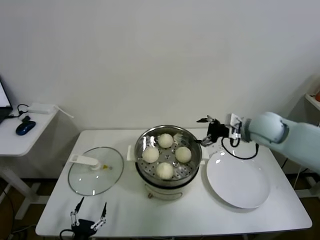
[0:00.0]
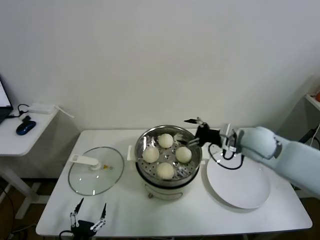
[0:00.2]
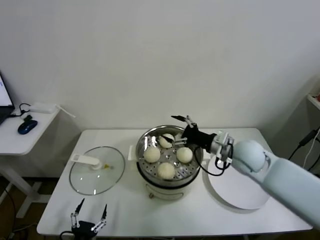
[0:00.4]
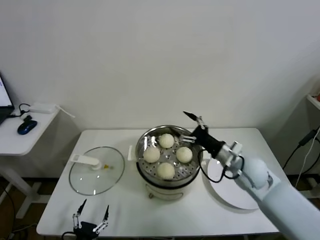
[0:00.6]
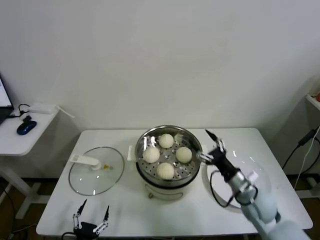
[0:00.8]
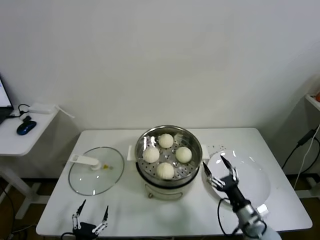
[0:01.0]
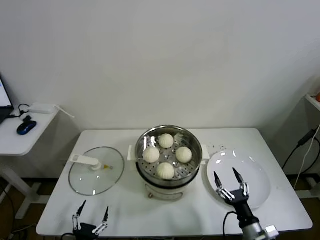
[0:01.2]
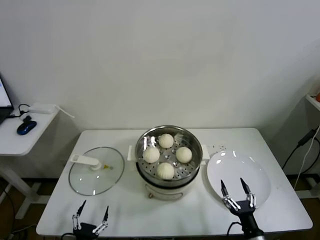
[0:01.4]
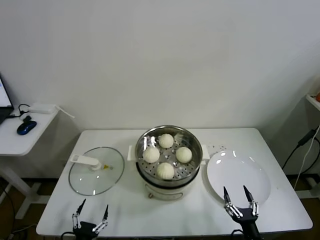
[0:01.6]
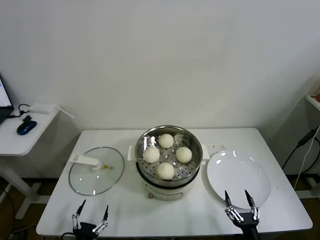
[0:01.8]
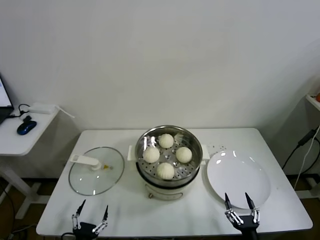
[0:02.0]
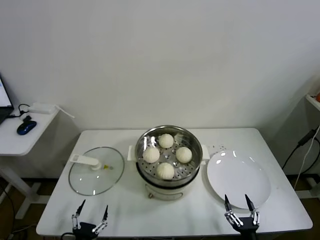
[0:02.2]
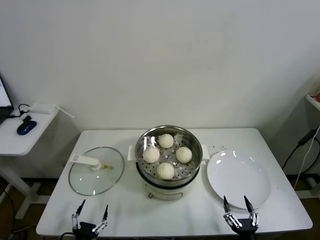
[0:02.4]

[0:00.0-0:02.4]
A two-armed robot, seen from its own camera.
Task of the whole recording: take steamed baozi put them in steamer.
0:00.0 to 0:01.2: The right gripper is displaced downward and backward by roughly 40 cm.
0:01.2 to 0:02.4: The right gripper shifts roughly 10 cm backward.

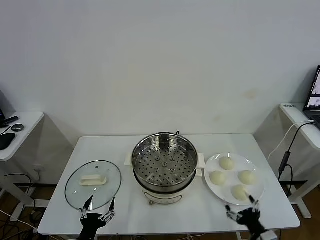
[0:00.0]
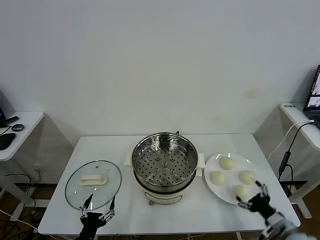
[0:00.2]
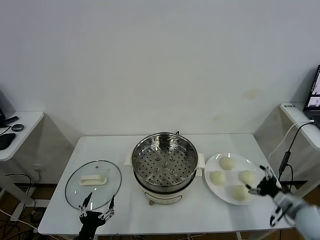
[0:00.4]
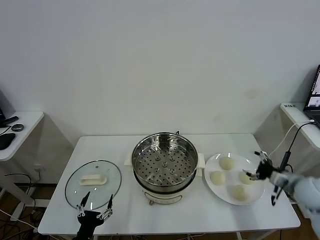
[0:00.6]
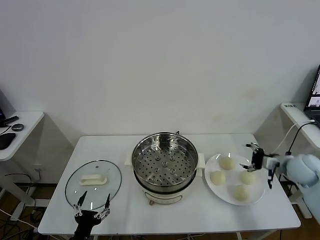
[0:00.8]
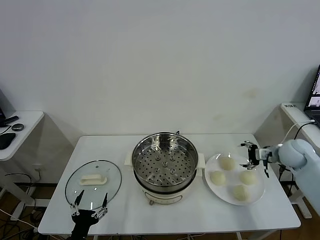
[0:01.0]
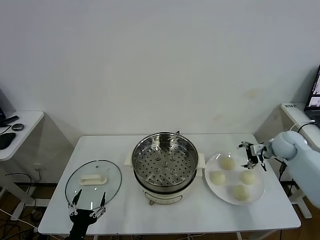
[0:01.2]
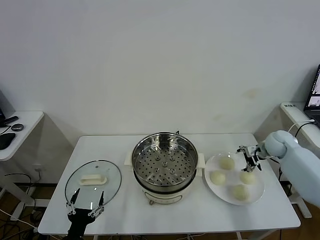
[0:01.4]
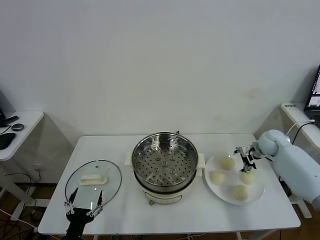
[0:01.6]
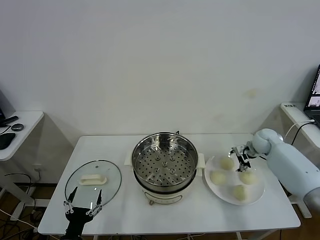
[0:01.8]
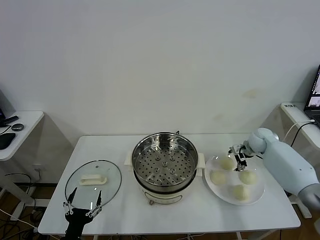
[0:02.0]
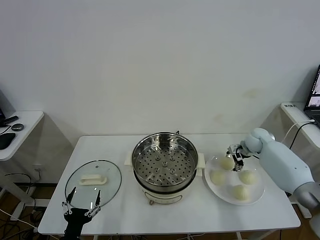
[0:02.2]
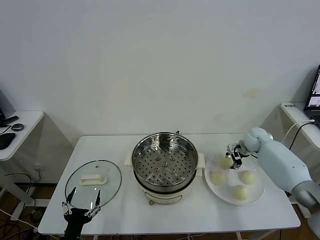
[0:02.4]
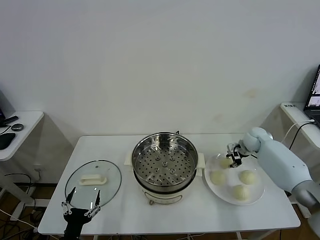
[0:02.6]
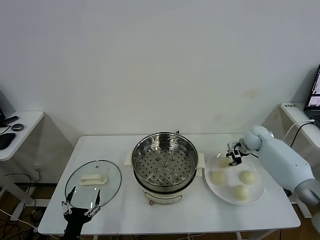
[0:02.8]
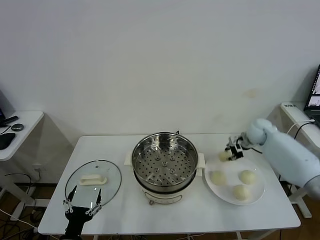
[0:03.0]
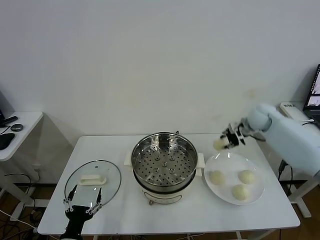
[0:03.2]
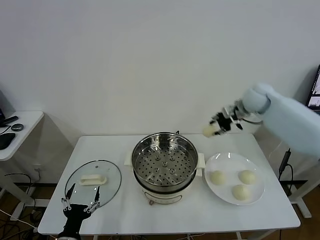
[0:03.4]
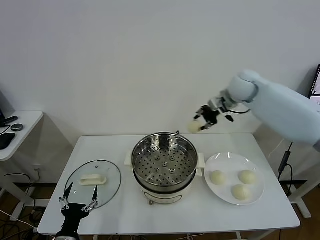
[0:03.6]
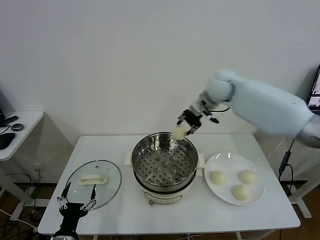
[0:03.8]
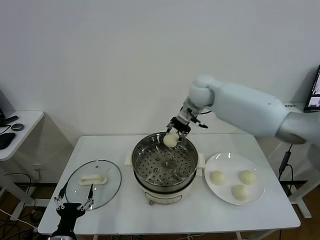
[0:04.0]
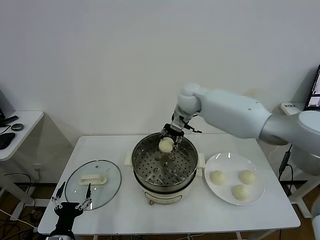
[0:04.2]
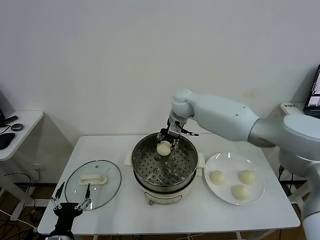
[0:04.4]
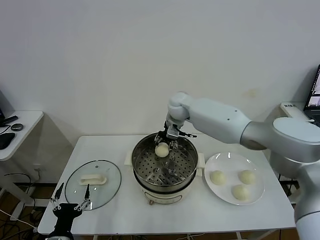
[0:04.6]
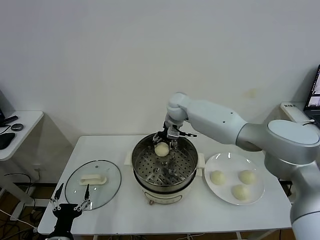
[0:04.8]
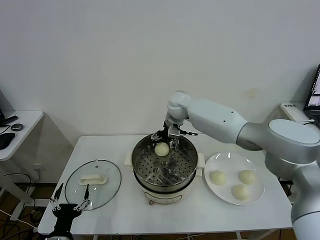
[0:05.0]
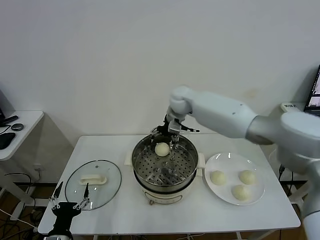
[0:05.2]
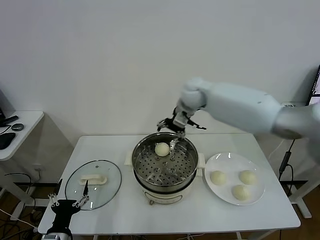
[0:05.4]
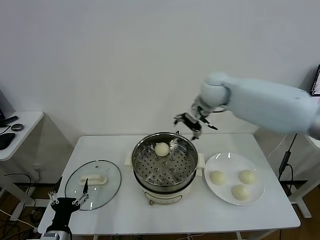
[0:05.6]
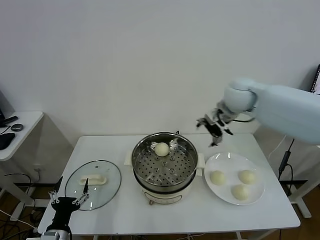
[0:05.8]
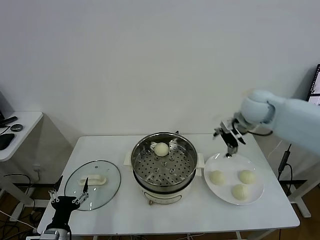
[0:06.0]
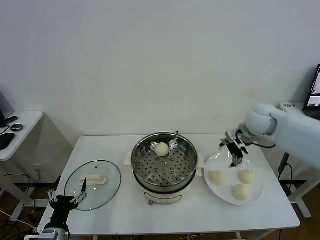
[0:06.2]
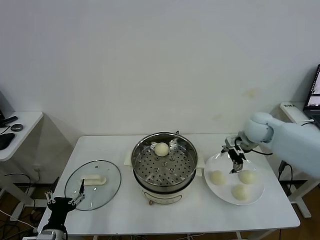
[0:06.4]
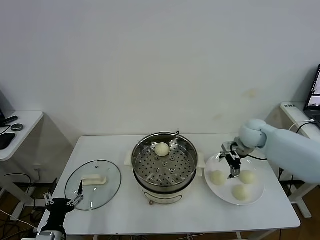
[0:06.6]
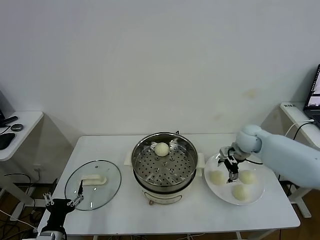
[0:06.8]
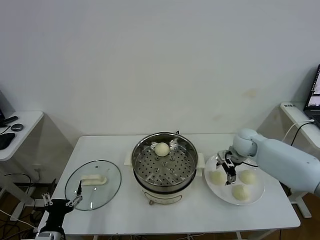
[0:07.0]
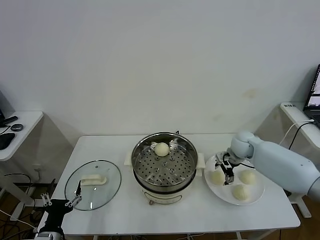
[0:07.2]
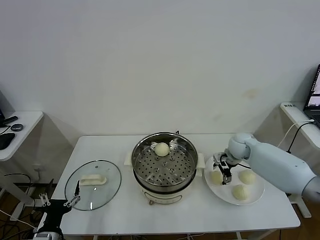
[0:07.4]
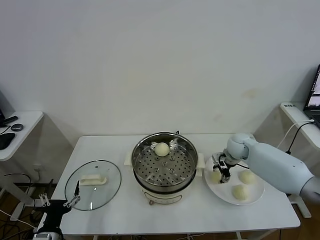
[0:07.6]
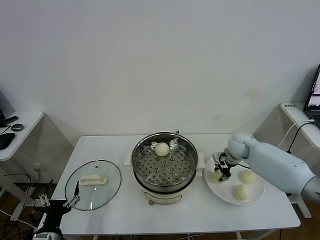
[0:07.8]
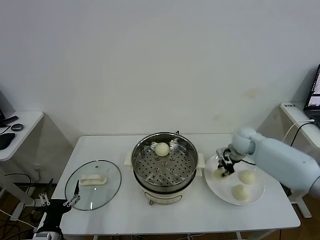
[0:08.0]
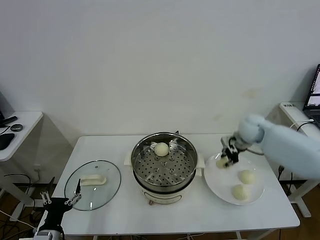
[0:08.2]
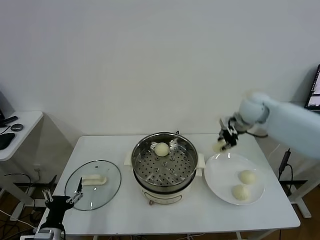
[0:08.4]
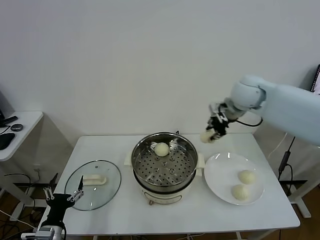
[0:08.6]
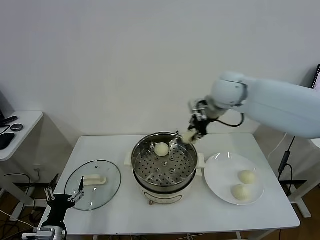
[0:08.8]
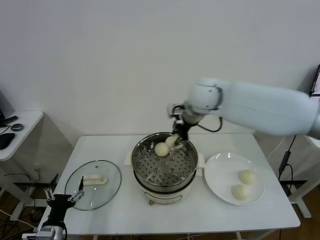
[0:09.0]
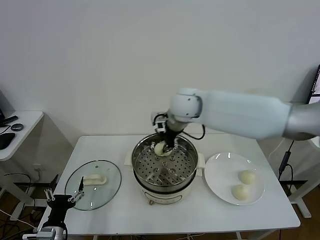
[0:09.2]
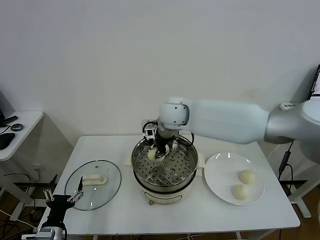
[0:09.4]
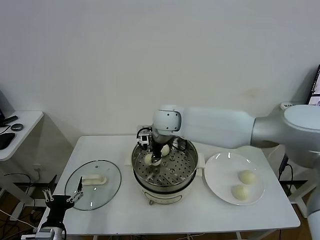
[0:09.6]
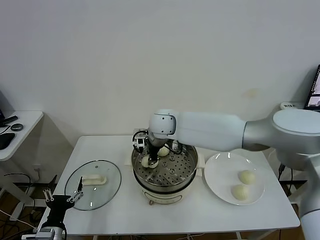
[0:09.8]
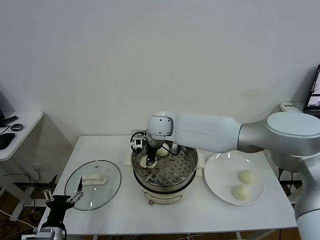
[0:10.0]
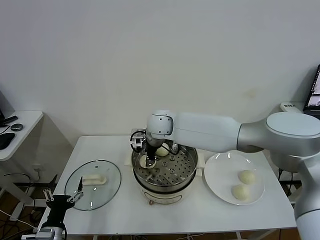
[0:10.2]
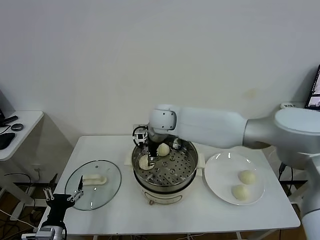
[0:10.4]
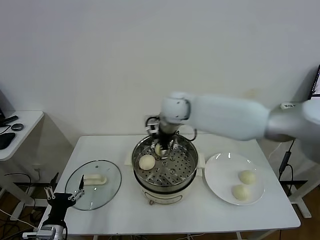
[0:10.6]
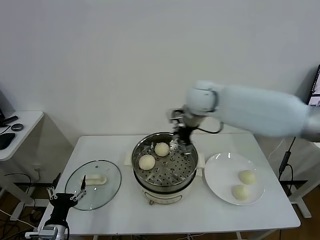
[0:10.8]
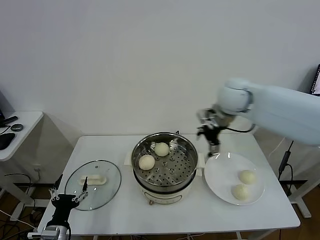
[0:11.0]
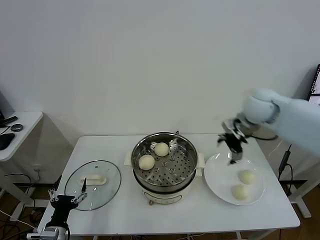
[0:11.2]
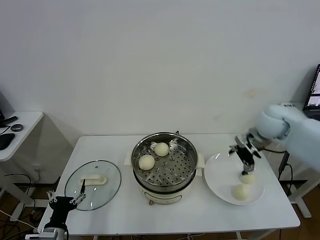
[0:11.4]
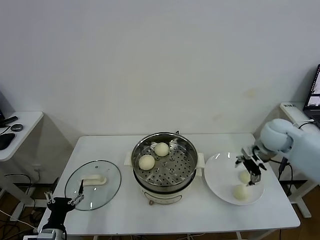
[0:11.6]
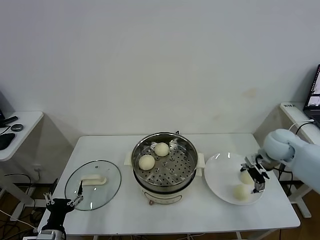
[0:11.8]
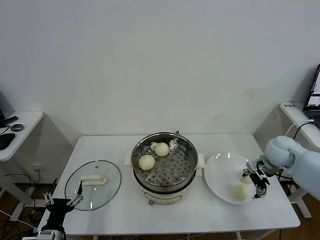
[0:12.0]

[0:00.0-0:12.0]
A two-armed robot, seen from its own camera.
Task of the whole recording: take steamed baozi put them in steamer.
Step, 0:00.0 to 0:02.4: Grasp the baozi in the plate with right gripper.
Step, 0:02.6 to 0:05.0: Place the baozi on the steamer with right gripper.
Step, 0:05.2 to 0:07.6: Grasp the baozi in the plate with right gripper.
Step, 0:07.8 to 0:10.4: Place the baozi on the steamer with right gripper.
0:01.6 to 0:03.0: The right gripper is displaced upward by roughly 10 cm, and closes its fingers.
0:03.0 to 0:04.4: The right gripper heads to the left, covering about 30 cm.
0:04.4 to 0:06.0: The right gripper goes about 25 cm to the right, and opens its fingers.
0:06.0 to 0:07.6: The right gripper travels downward by approximately 15 cm, and closes its fingers.
0:07.6 to 0:09.0: The right gripper shifts about 30 cm upward and to the left, and closes its fingers.
0:09.0 to 0:10.4: The right gripper heads to the left and downward, covering roughly 10 cm, and opens.
0:10.4 to 0:12.0: The right gripper moves to the right, roughly 40 cm.

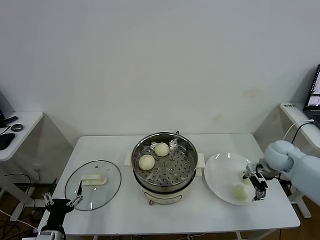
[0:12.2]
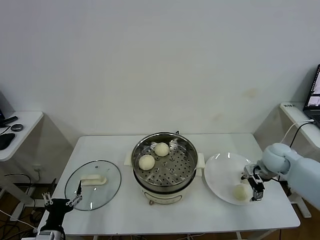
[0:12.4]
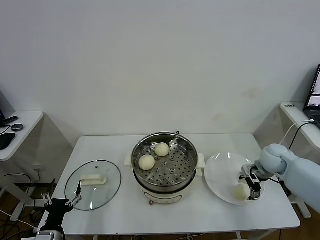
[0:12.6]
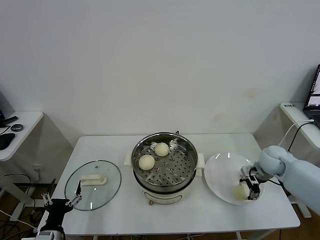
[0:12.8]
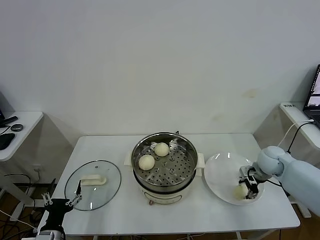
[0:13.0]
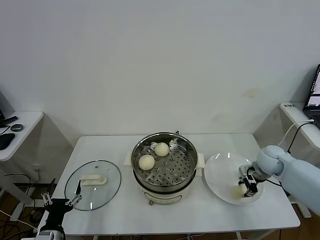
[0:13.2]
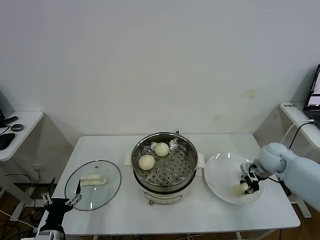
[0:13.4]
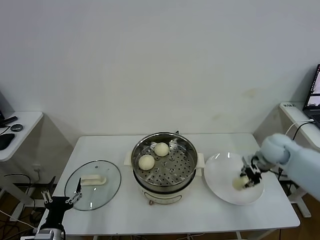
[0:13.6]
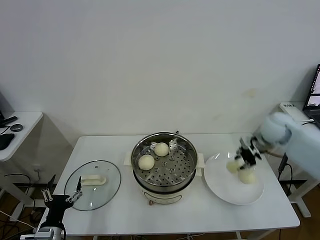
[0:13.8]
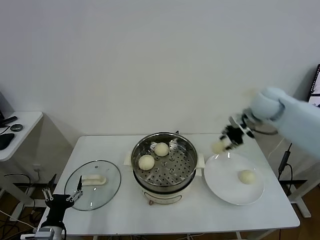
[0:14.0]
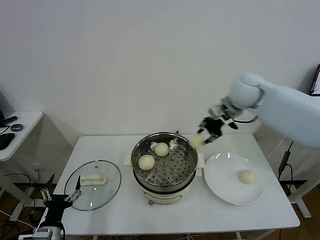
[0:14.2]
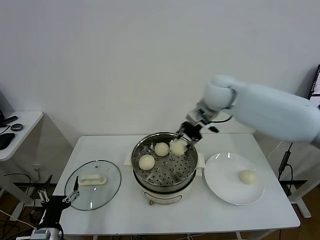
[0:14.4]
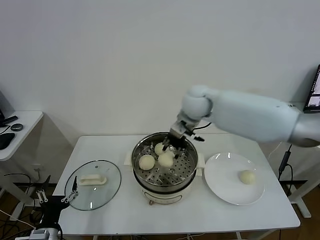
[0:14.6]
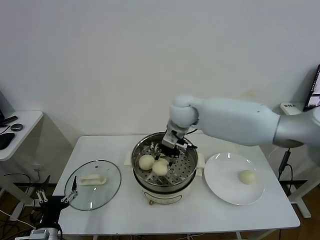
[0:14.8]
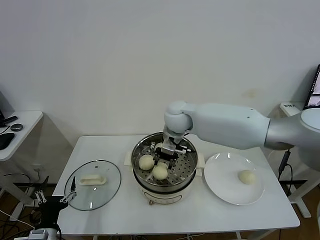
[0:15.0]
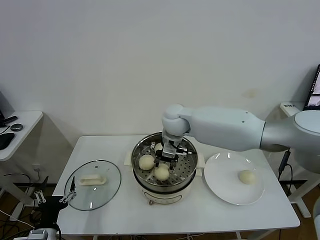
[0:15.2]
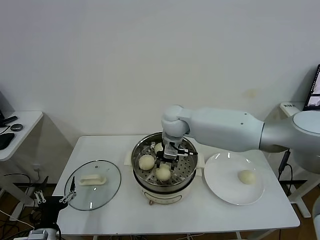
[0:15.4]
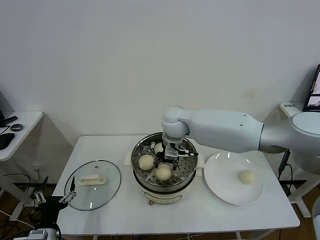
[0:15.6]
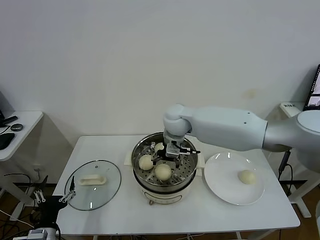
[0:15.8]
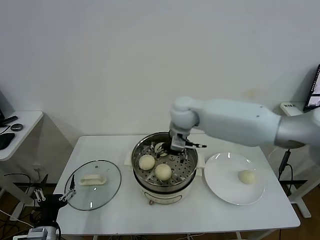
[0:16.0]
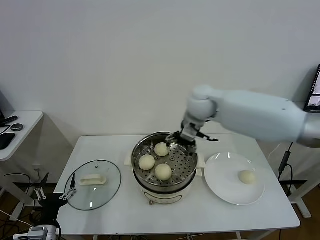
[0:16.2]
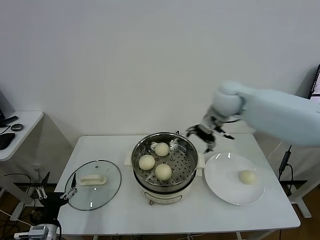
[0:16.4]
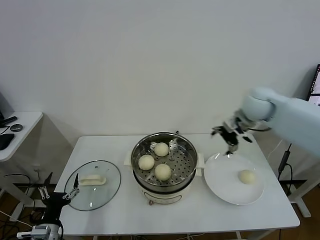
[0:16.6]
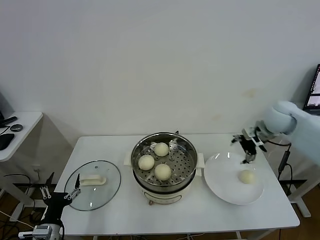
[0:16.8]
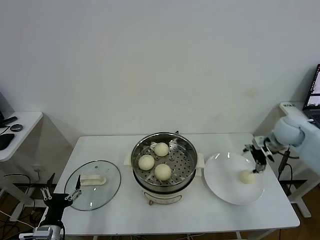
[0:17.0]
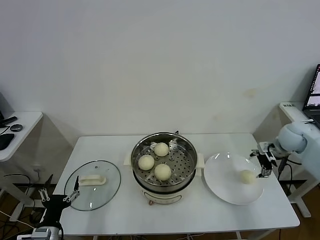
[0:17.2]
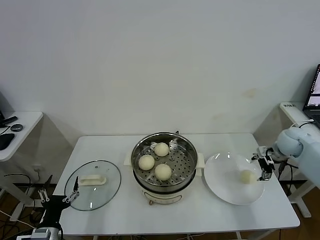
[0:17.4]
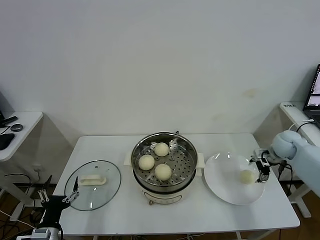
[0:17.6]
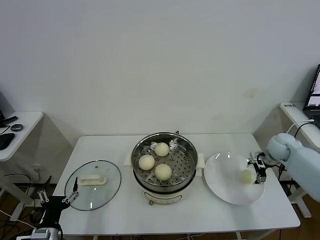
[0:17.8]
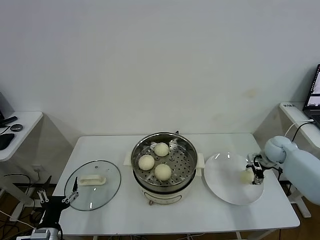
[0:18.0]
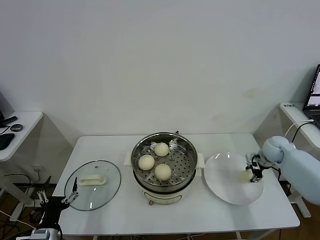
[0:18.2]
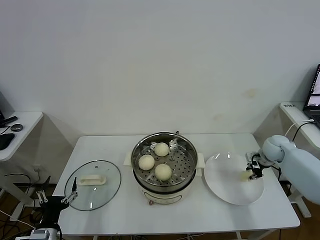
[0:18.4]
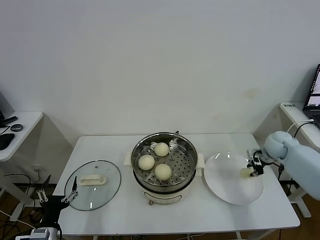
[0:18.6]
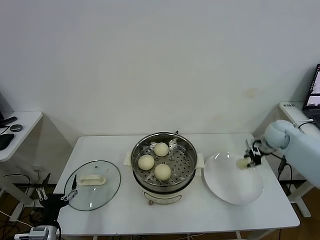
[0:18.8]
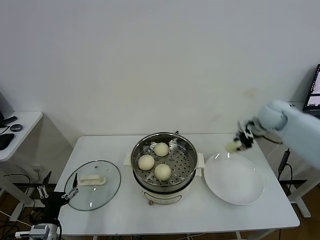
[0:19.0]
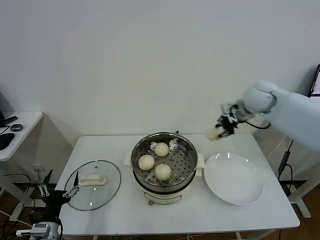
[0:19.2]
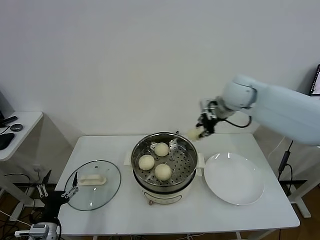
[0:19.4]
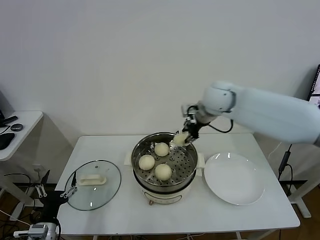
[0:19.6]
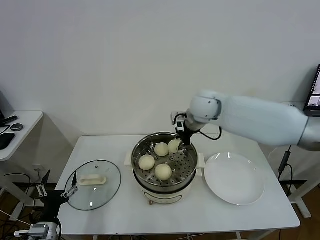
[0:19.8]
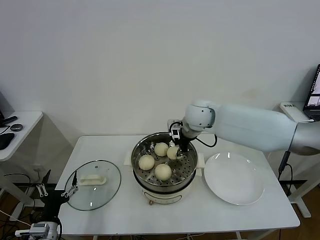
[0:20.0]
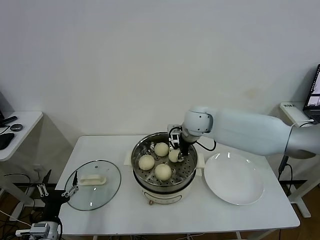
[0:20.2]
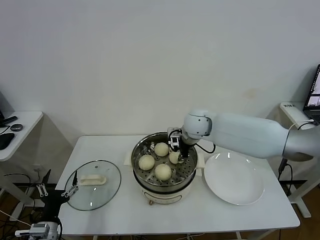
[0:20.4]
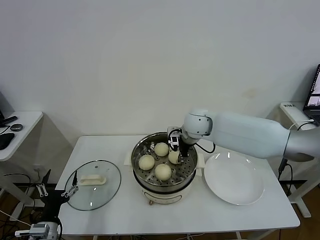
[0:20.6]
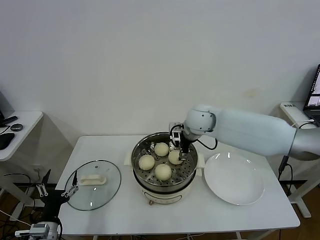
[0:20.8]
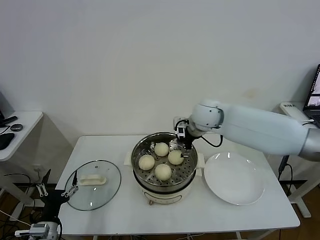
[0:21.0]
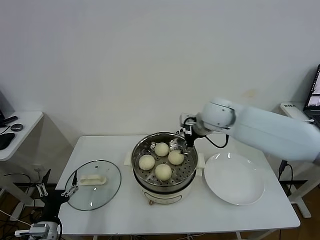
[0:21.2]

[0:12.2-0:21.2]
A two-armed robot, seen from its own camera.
Task of the whole recording: take steamed baozi put them in steamer.
Step, 0:13.4 to 0:15.8: Place the baozi on the steamer with right gripper.
Step, 0:16.2 to 0:18.2: Grasp the baozi in the plate with right gripper.
Step, 0:18.4 to 0:20.8: Place the baozi on the steamer with right gripper.
0:12.2 to 0:13.8: The right gripper moves upward and forward, approximately 15 cm, and closes its fingers.
0:13.8 to 0:15.2: The right gripper travels to the left by roughly 30 cm.
0:15.2 to 0:16.6: The right gripper is displaced to the right by about 25 cm, and opens up.
0:16.6 to 0:18.2: The right gripper travels downward and to the right by about 25 cm, and closes its fingers.
0:18.2 to 0:19.8: The right gripper heads to the left and upward, covering roughly 35 cm.
0:19.8 to 0:21.2: The right gripper ends up about 5 cm from where it was, and opens.
